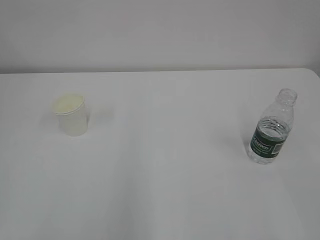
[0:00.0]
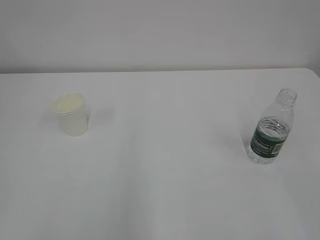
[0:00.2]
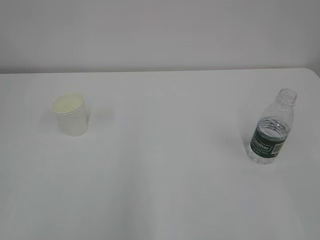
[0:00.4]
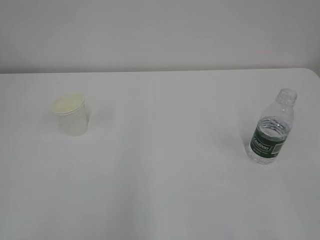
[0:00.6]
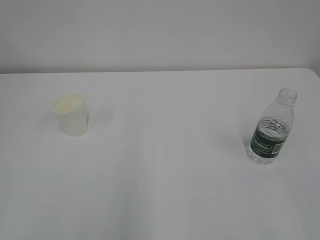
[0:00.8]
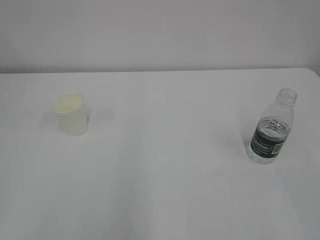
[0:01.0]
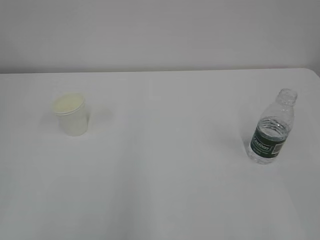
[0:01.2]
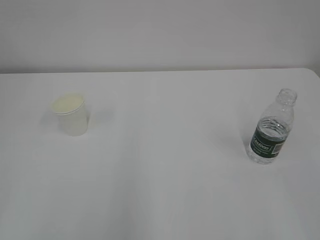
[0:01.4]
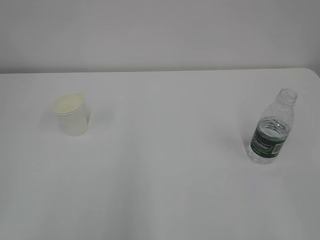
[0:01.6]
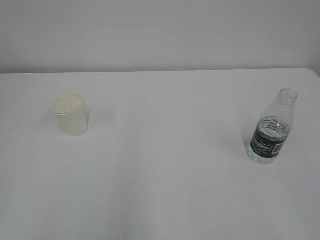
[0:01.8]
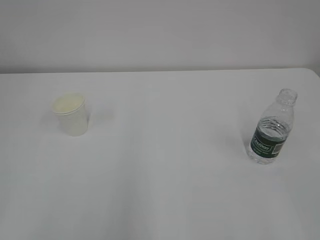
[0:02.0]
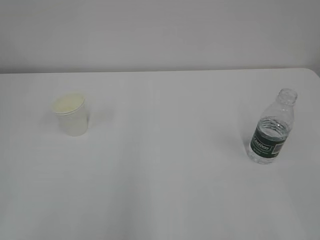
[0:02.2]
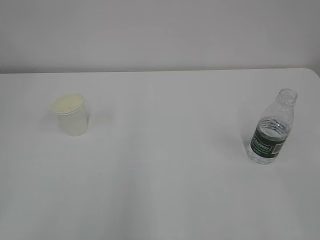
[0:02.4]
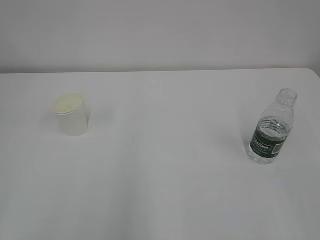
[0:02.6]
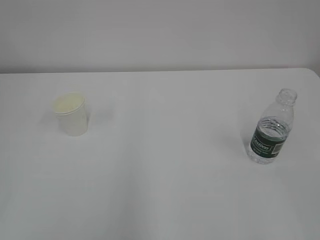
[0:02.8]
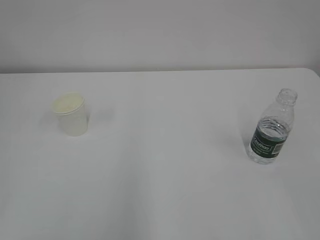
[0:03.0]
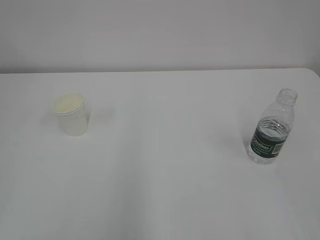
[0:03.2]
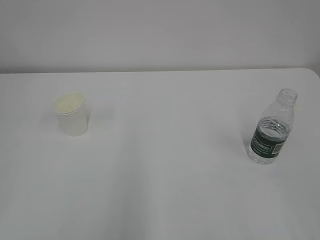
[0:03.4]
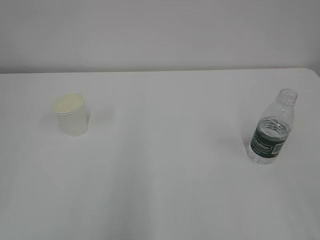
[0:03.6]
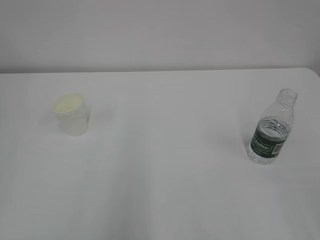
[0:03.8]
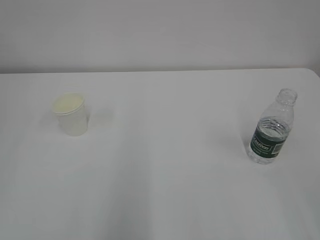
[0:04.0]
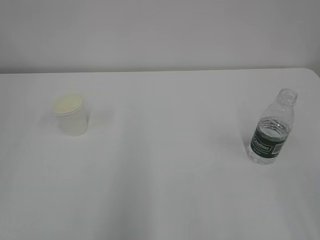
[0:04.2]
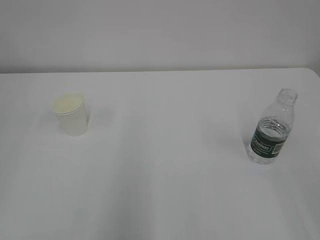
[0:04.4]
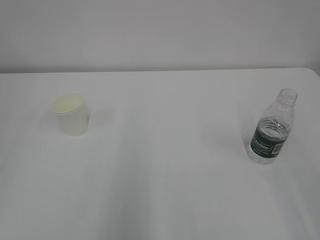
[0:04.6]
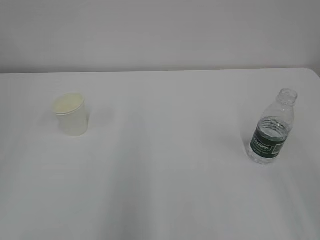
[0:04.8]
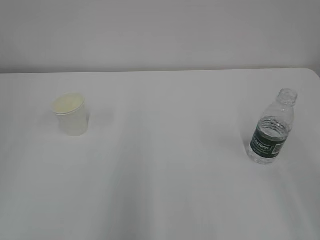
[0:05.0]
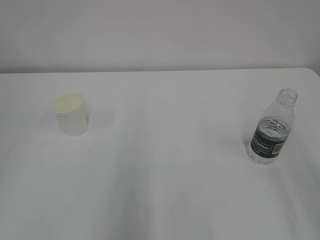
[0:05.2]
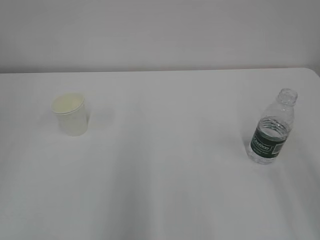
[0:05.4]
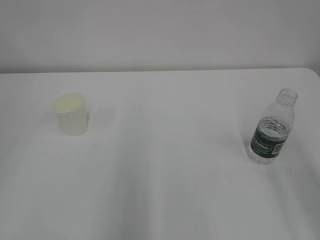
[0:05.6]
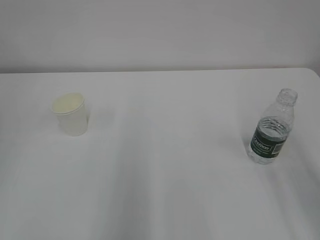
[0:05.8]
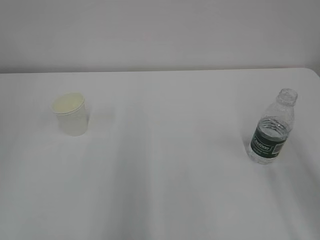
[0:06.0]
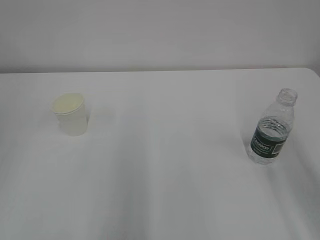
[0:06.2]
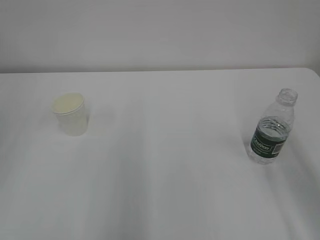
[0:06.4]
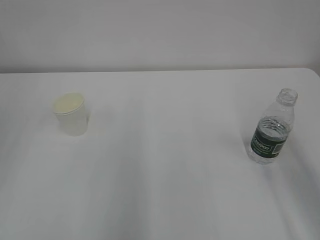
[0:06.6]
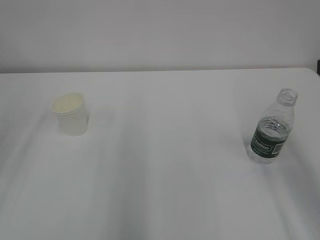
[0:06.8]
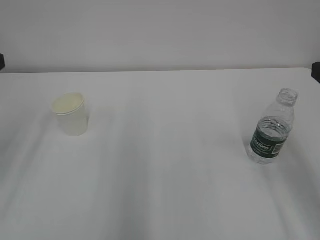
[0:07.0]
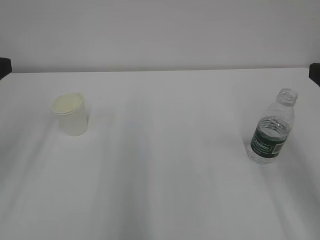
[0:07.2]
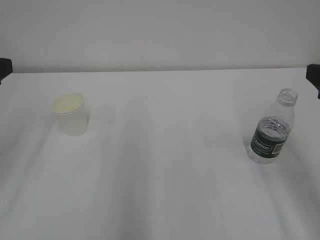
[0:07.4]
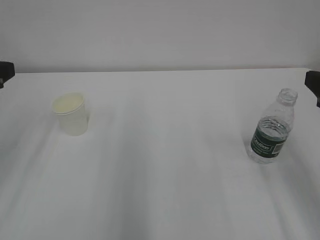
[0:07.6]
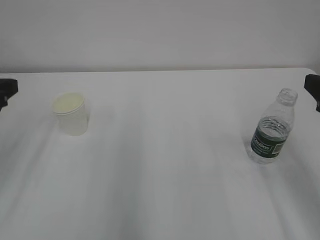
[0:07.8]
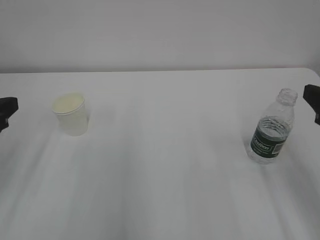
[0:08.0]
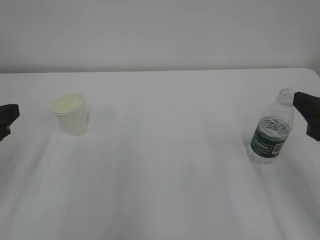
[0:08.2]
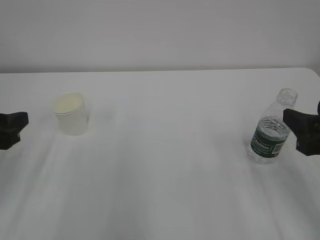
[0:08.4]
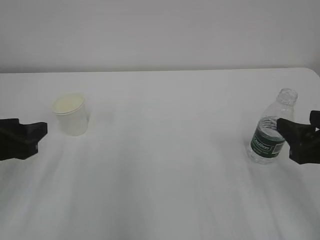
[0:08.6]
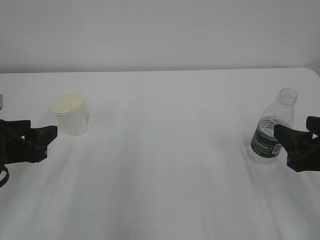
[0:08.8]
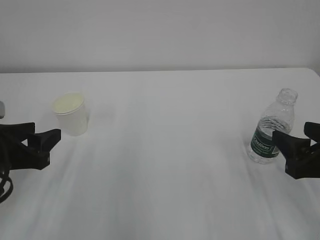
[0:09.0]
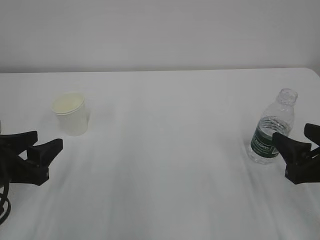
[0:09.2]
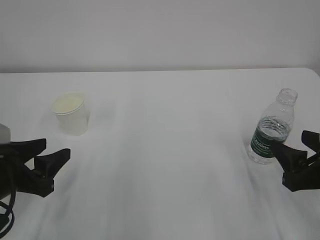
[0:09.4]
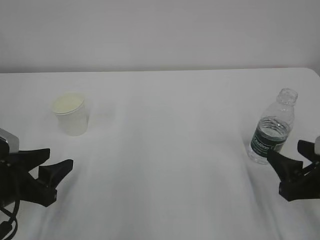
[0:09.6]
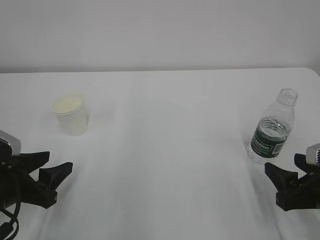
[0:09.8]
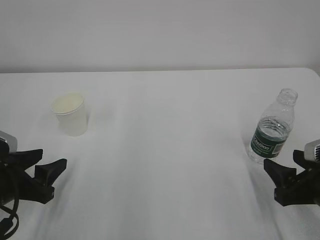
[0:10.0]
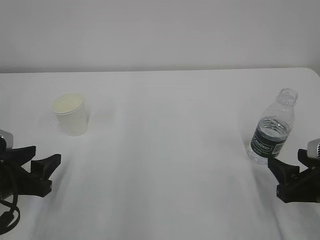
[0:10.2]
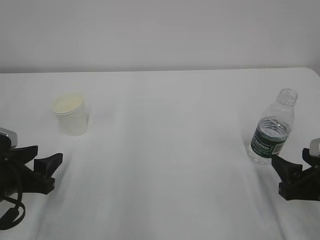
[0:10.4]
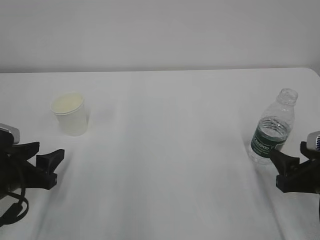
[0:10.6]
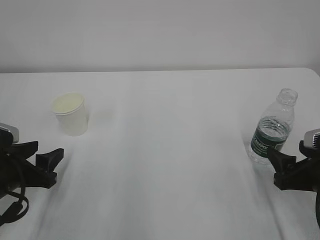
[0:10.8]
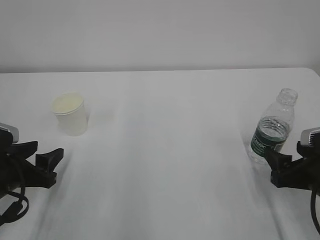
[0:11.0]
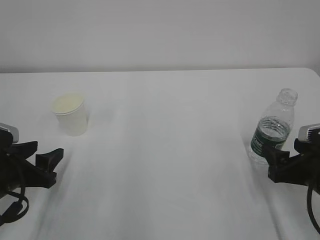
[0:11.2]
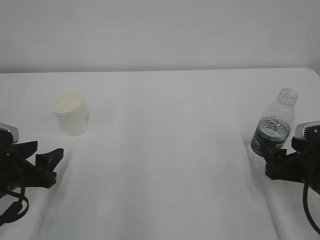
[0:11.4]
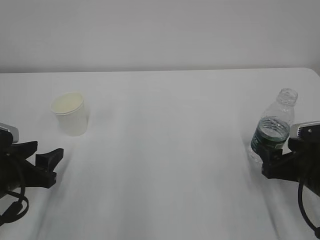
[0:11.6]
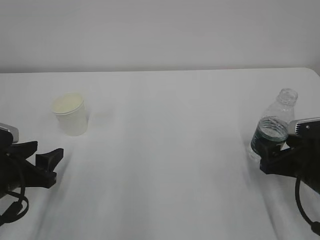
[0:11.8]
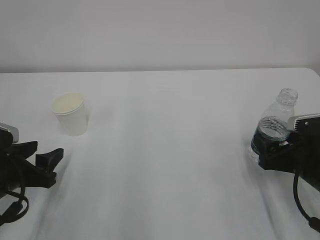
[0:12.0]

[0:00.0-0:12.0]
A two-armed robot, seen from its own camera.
0:07.6 to 0:09.0: Both grippers move downward, roughly 10 cm.
0:09.0 to 0:10.4: The right gripper goes some 5 cm downward.
0:10.4 to 0:12.0: The right gripper goes some 5 cm forward, and opens.

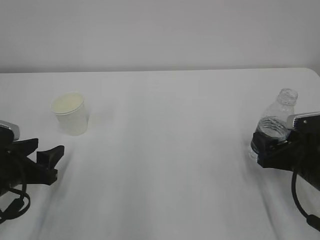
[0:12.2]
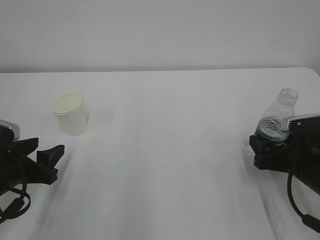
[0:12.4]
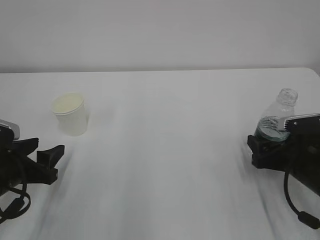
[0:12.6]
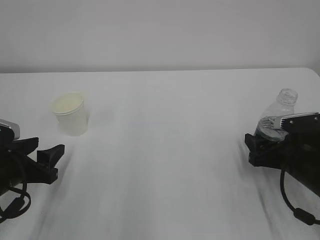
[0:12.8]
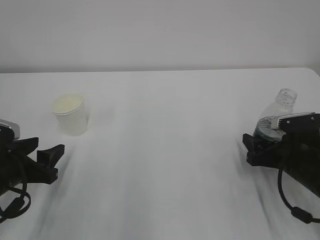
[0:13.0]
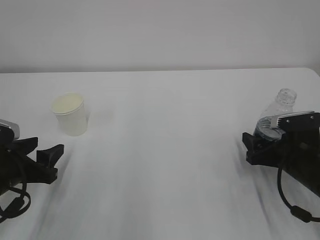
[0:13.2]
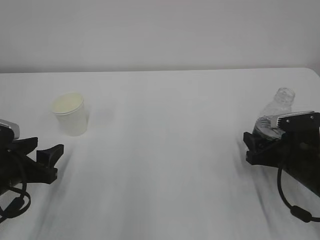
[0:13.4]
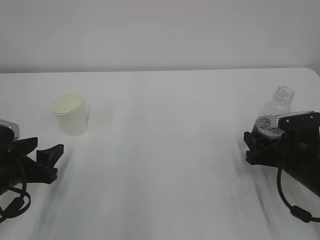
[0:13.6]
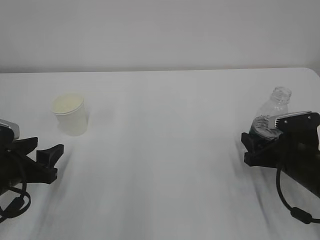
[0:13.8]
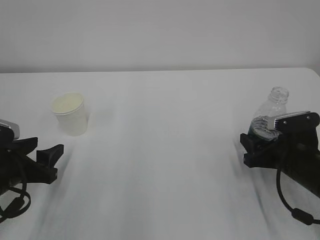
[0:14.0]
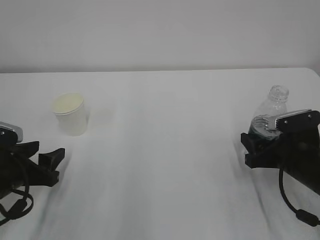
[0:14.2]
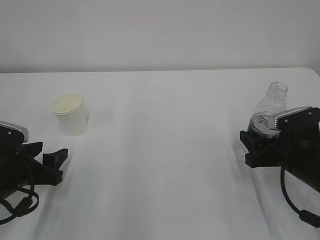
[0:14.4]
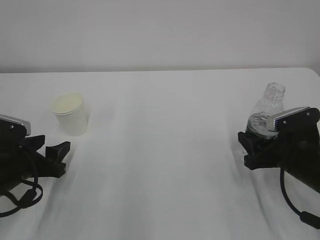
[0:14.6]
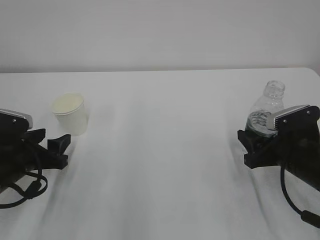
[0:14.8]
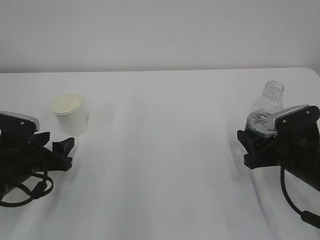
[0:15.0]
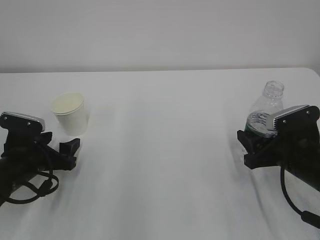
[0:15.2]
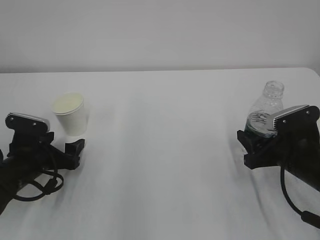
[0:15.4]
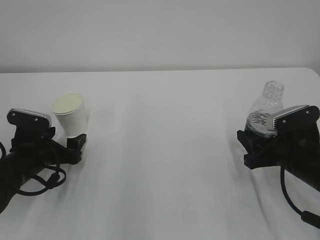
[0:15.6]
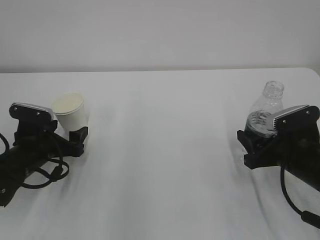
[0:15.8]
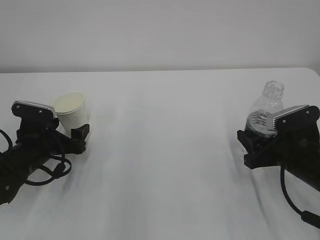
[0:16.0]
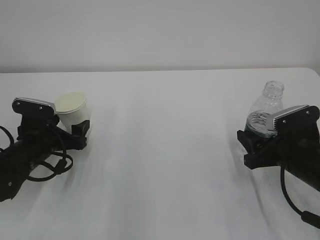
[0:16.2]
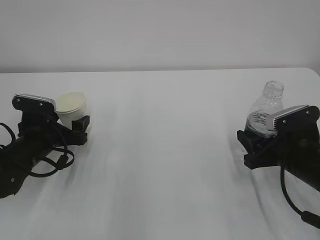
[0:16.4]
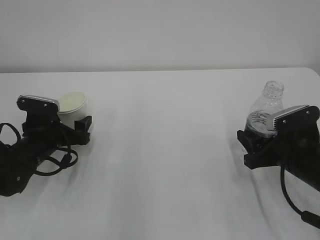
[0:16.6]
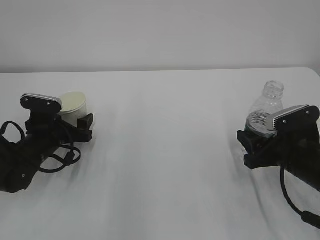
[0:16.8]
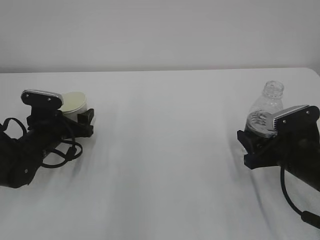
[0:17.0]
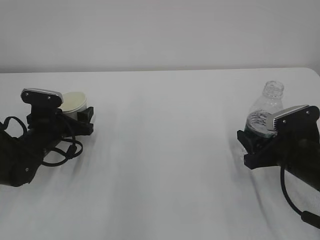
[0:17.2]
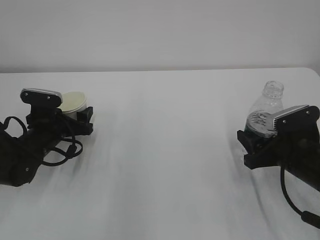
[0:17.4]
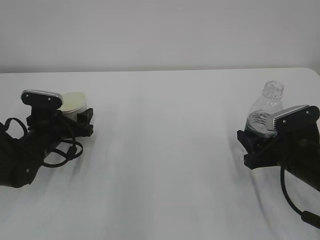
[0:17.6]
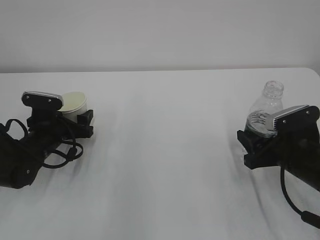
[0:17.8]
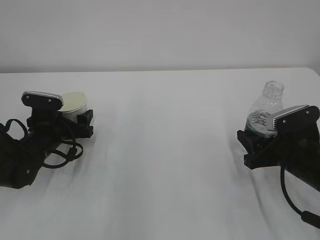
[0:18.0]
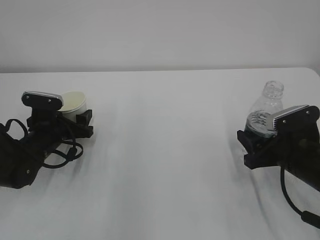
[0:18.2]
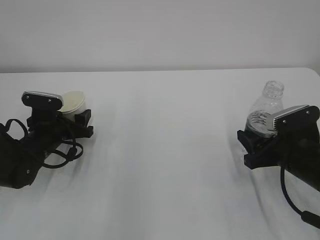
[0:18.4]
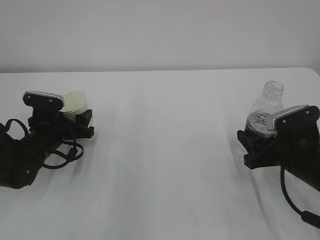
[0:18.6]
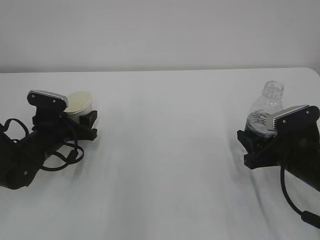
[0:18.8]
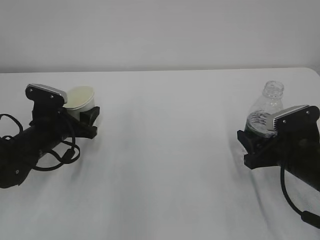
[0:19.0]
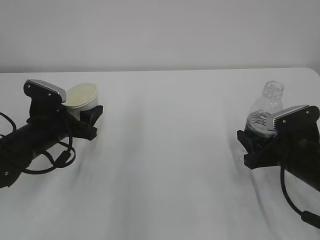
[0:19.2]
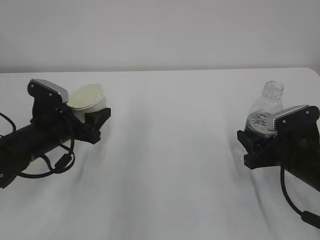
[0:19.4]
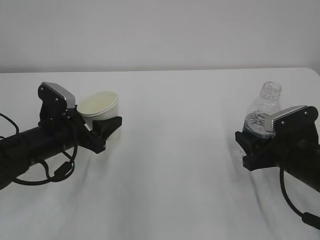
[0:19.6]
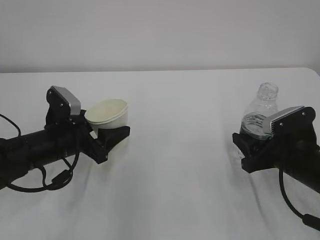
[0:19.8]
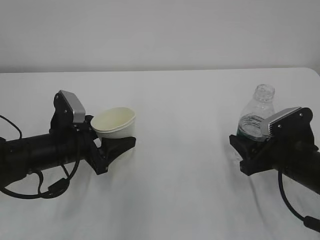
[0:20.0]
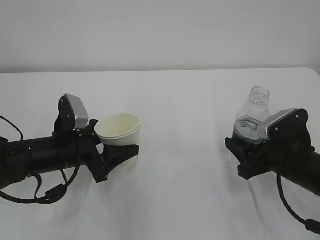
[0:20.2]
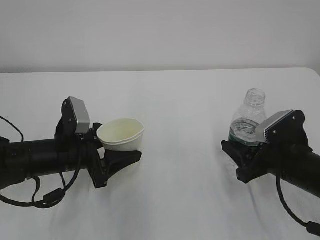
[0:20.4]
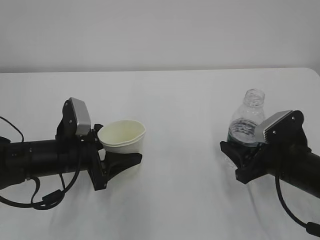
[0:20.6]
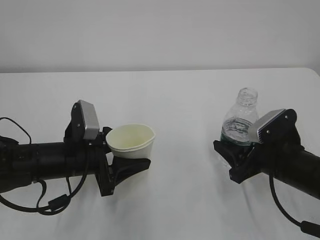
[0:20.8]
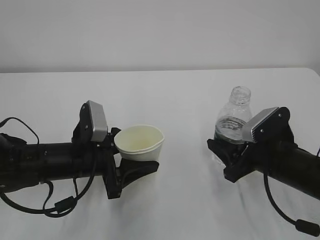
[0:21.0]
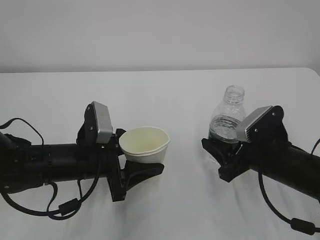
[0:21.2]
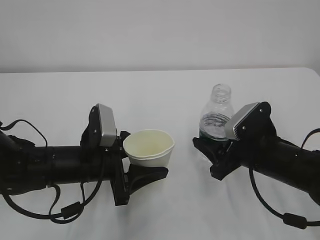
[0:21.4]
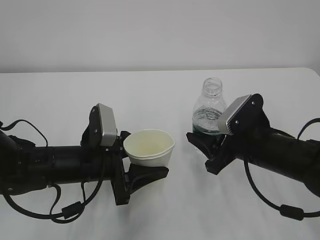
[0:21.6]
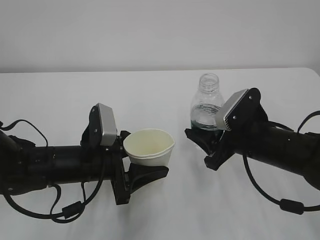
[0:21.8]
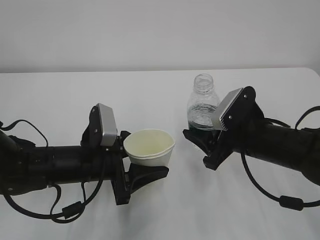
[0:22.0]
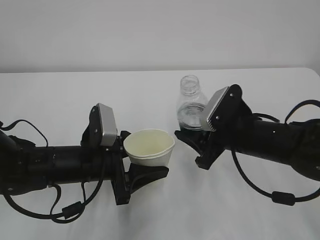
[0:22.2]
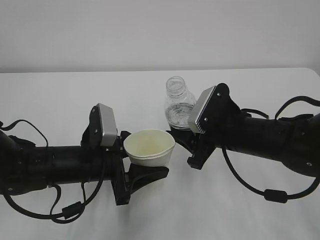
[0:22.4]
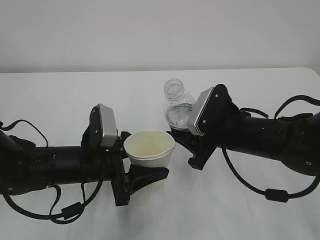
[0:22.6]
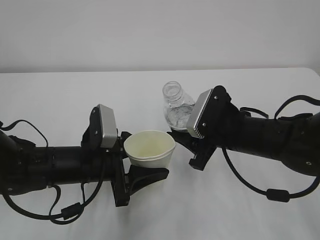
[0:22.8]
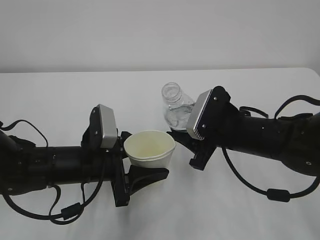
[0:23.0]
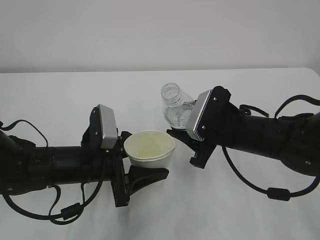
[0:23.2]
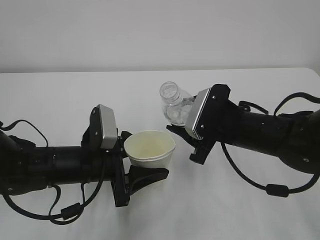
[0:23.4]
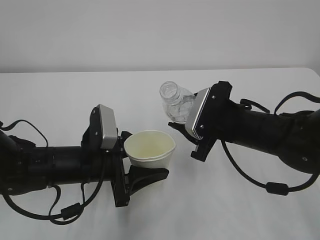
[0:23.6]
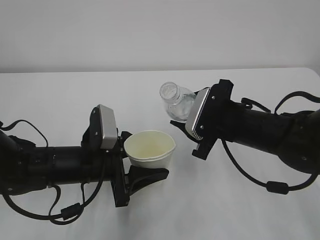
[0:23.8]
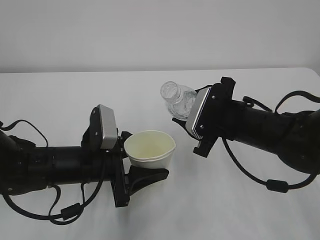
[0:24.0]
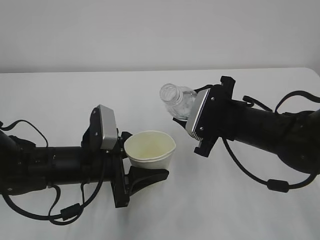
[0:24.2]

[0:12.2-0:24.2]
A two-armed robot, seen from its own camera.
0:12.2 to 0:13.8: The right gripper closes up.
0:13.8 to 0:15.2: The left gripper goes roughly 5 cm forward.
0:15.2 to 0:16.6: The left gripper is displaced forward by about 5 cm.
0:16.6 to 0:18.2: The grippers move only a little.
0:18.2 to 0:19.8: The left gripper heads backward, covering approximately 5 cm.
0:19.8 to 0:21.2: The left gripper travels to the right by roughly 5 cm.
0:21.2 to 0:22.6: The right gripper travels to the left by roughly 5 cm.
